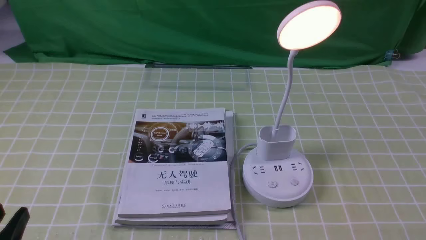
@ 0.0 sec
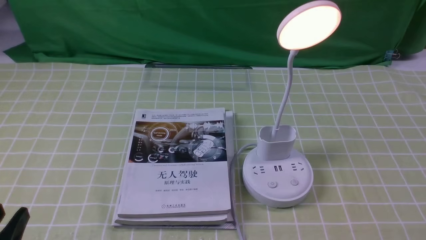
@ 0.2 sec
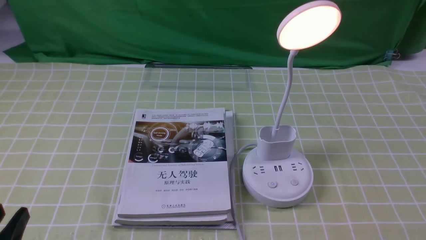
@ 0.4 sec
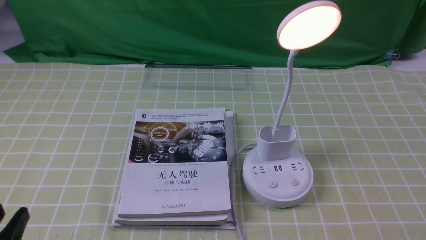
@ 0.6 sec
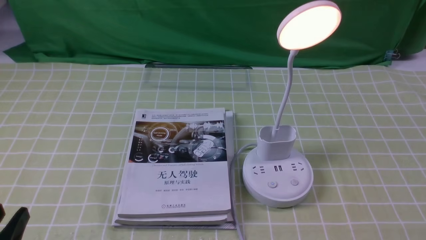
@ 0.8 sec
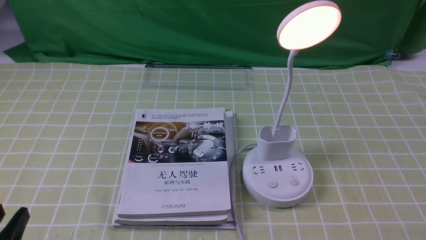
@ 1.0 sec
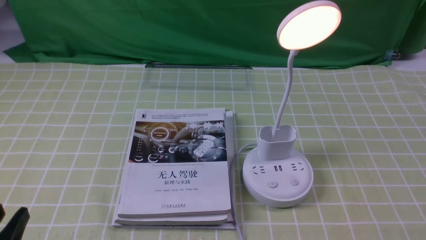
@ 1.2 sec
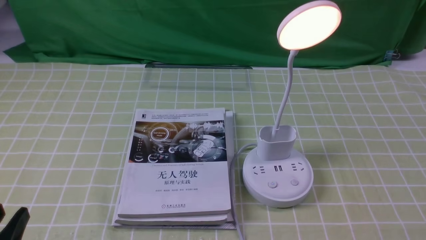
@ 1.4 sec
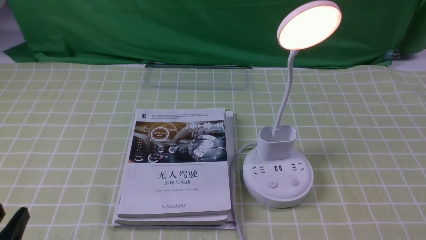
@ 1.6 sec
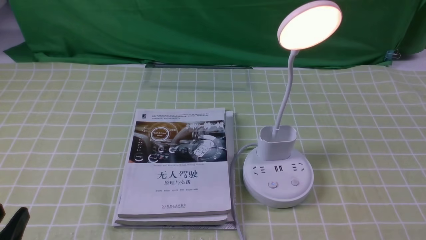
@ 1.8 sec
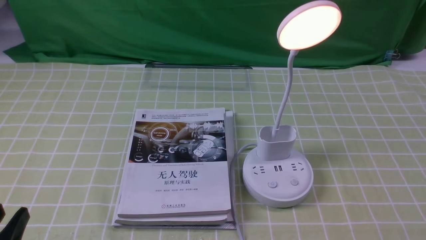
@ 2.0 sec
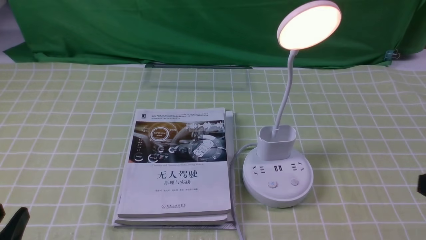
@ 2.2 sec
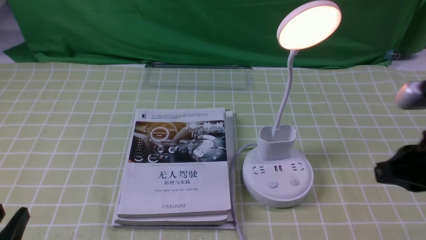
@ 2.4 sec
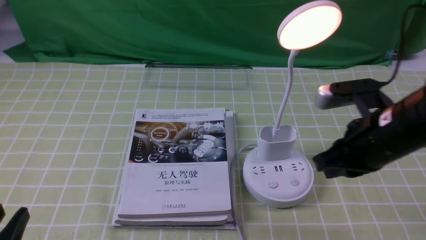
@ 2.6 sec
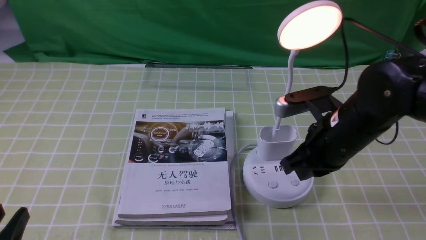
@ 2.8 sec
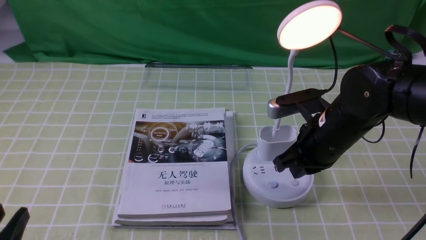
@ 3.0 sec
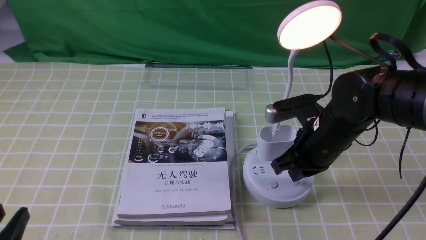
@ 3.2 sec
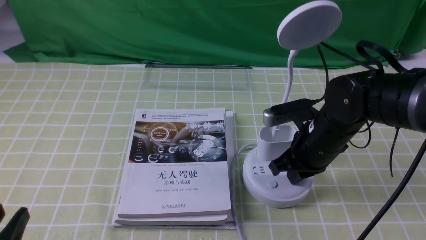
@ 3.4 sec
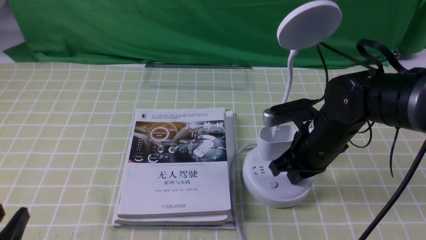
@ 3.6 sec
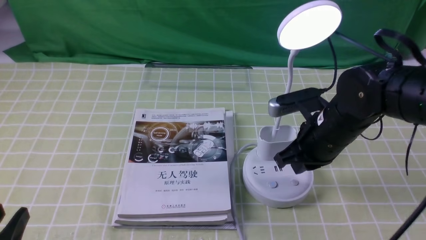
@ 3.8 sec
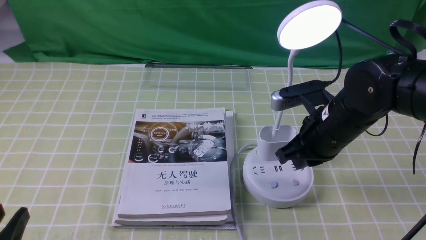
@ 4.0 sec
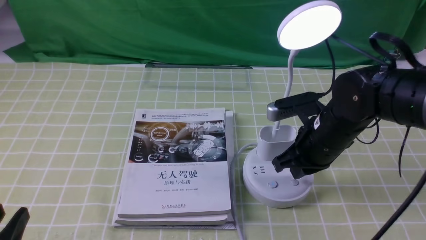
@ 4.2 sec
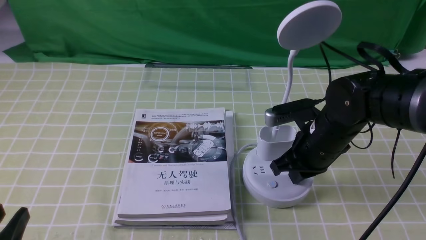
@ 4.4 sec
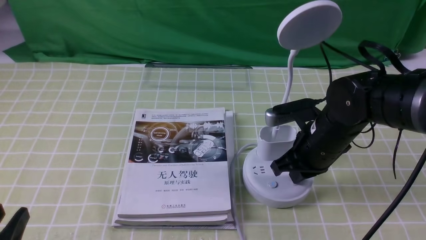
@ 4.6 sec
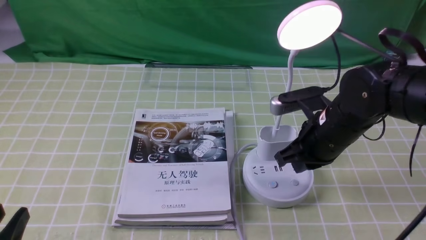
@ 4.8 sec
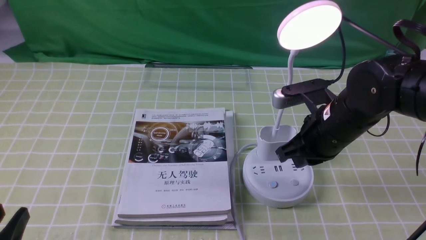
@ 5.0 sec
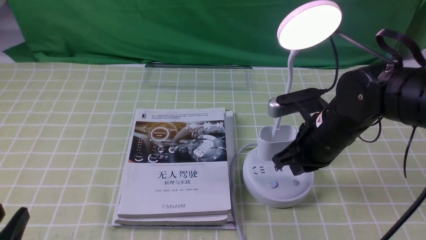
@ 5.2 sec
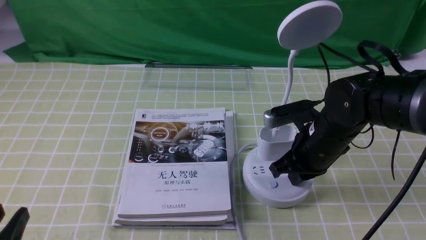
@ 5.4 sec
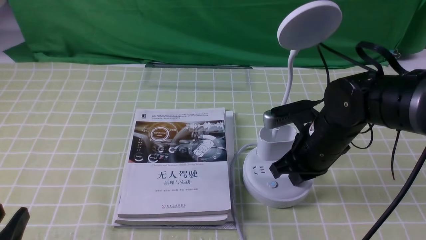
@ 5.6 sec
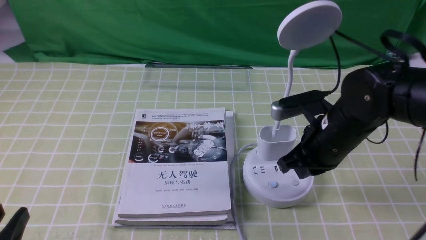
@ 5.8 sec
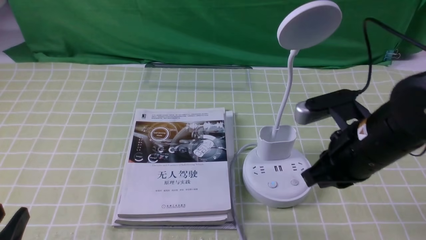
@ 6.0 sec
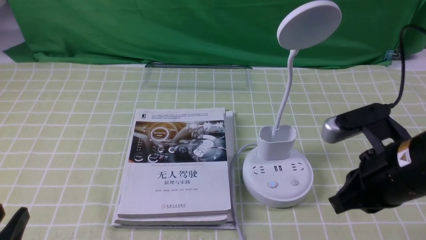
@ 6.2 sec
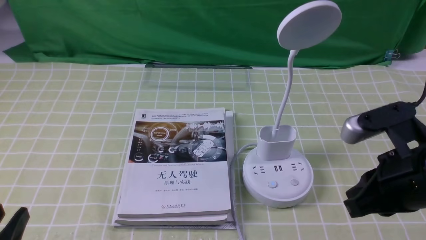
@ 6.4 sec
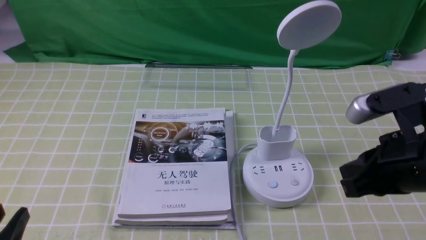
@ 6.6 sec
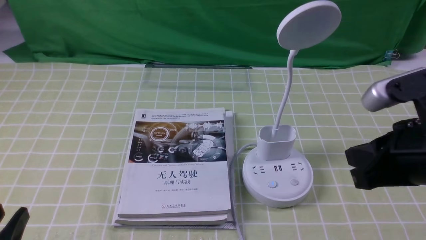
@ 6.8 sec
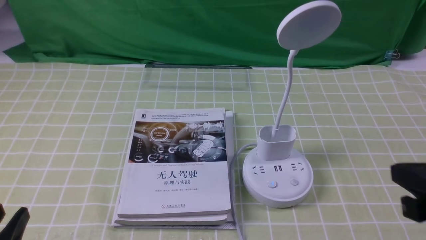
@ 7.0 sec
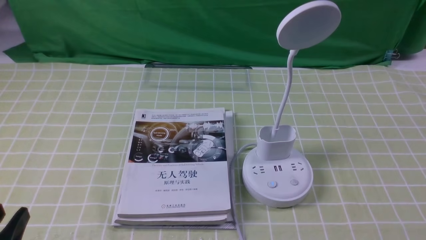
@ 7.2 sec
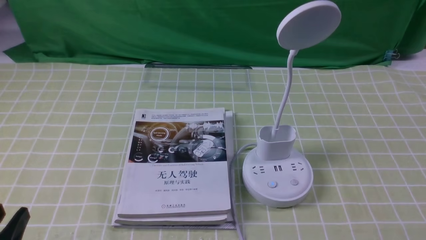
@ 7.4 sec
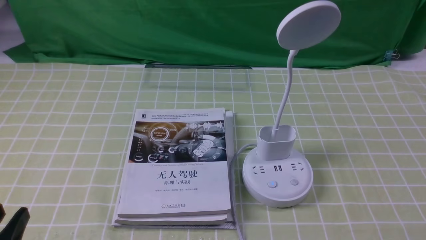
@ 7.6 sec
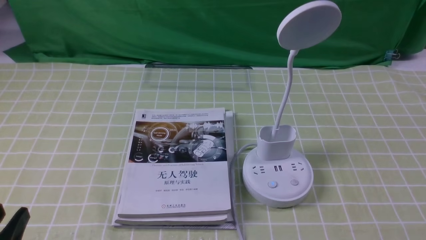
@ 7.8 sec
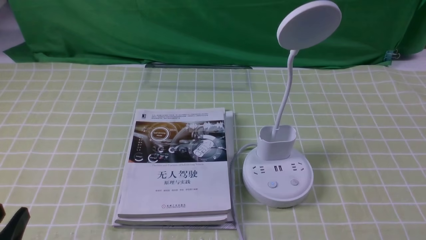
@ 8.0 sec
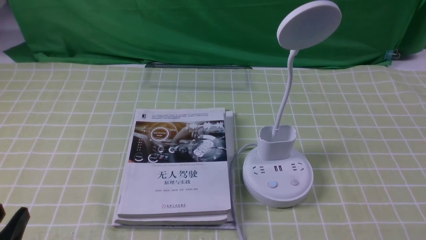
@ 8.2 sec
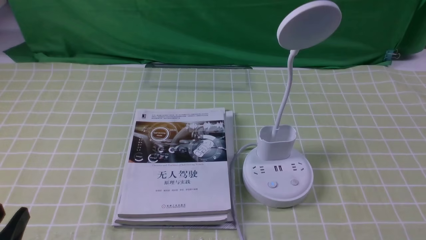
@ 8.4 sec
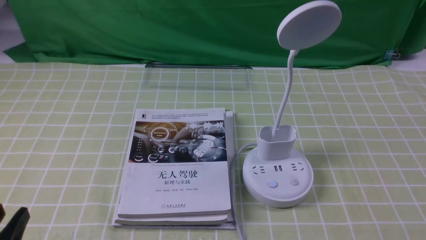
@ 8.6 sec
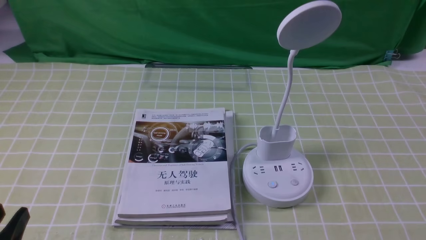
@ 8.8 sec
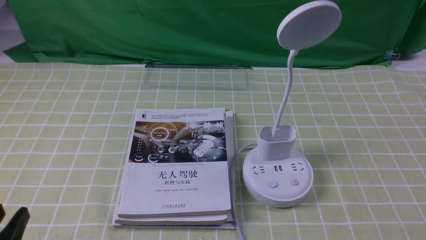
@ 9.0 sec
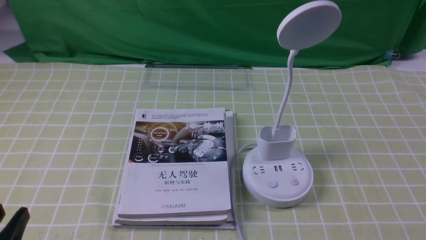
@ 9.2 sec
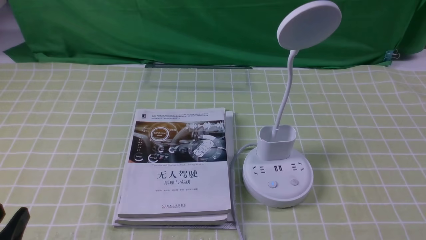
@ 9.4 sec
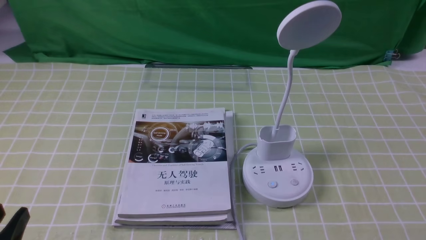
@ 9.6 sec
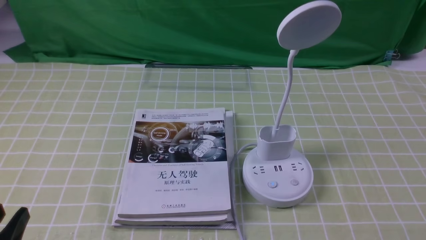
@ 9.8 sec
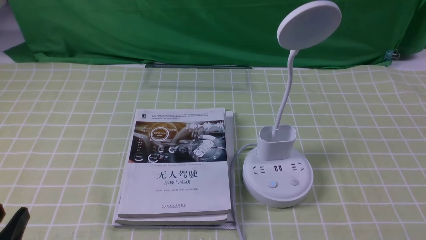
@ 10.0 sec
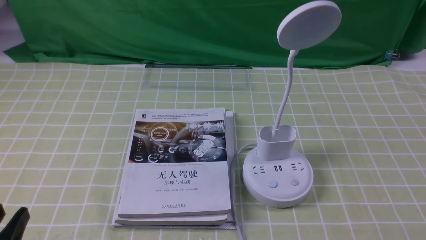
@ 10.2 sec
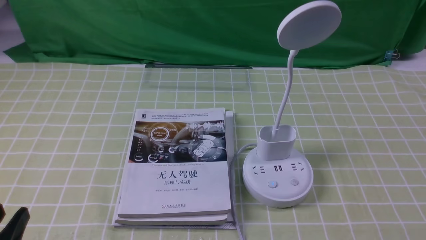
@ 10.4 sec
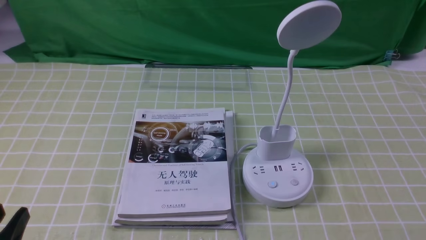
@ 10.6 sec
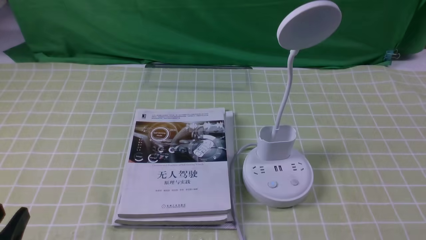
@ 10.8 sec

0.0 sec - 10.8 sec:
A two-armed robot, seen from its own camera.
Task of the whole recording: turn off the desk lamp on the green coffee tablecloth by hand.
Step, 0.0 sec - 5.8 sec: use the right arm to press the button switch on the lamp holder.
1.6 sec - 3.0 sec: The right gripper is displaced forward and to the left by some 30 cm, and closes.
3.0 sec - 4.6 sec: The grippers move only a little.
4.6 sec - 6.2 sec: The right gripper goes some 10 cm backward and upward.
6.2 sec - 7.8 sec: The right gripper goes some 20 cm backward and to the right.
7.8 sec - 9.2 sec: Neither gripper changes place.
